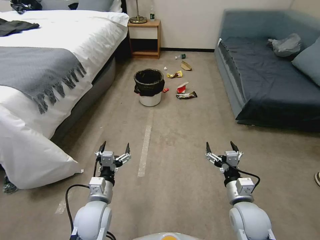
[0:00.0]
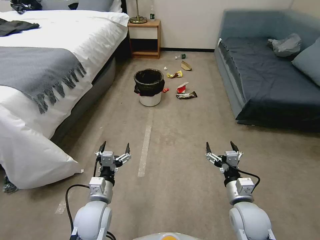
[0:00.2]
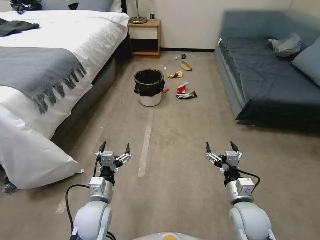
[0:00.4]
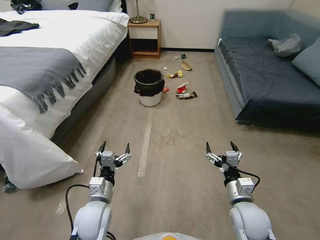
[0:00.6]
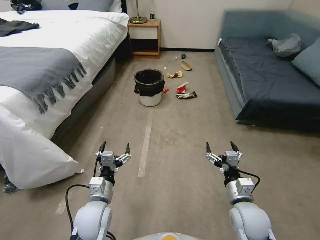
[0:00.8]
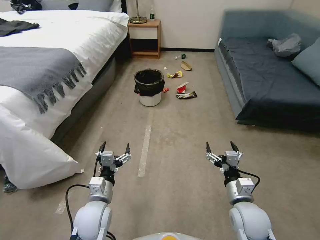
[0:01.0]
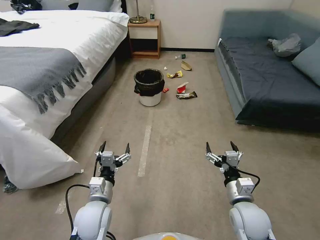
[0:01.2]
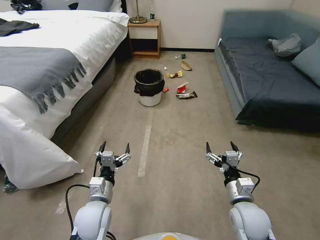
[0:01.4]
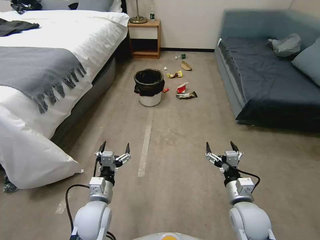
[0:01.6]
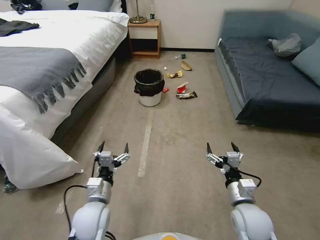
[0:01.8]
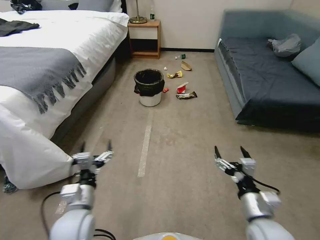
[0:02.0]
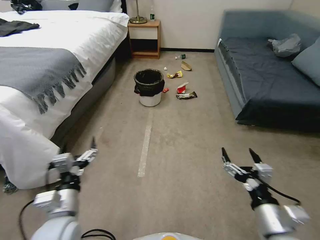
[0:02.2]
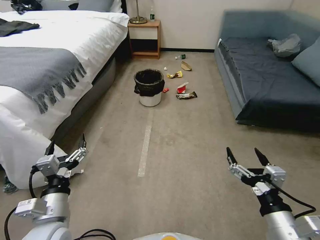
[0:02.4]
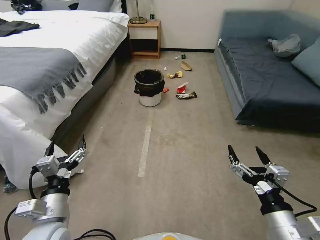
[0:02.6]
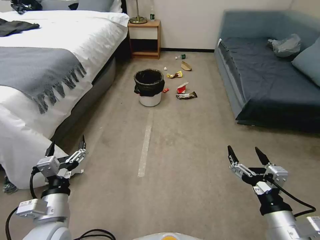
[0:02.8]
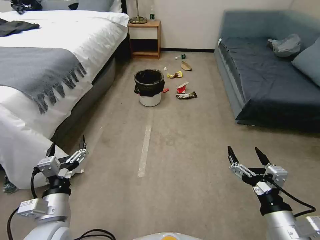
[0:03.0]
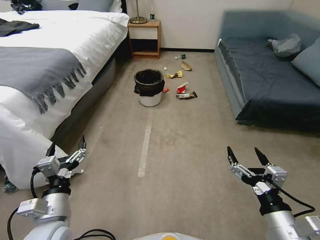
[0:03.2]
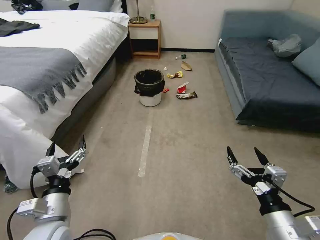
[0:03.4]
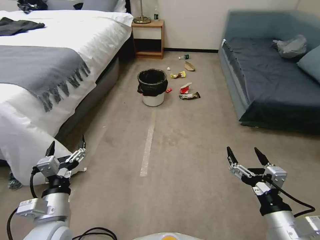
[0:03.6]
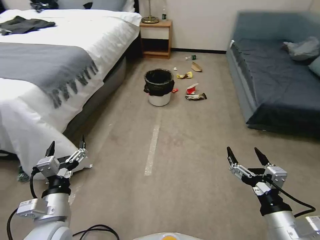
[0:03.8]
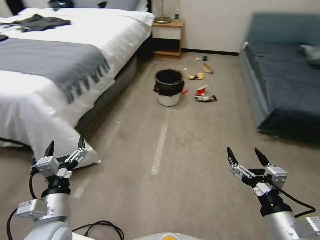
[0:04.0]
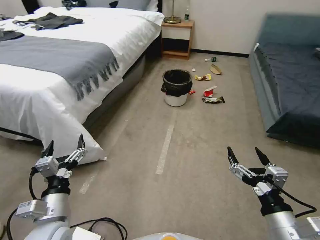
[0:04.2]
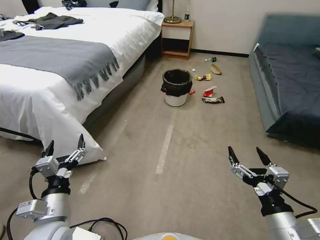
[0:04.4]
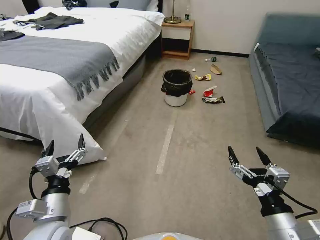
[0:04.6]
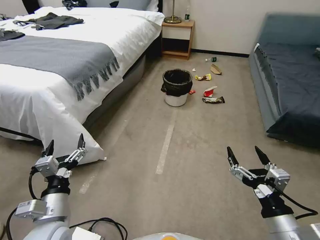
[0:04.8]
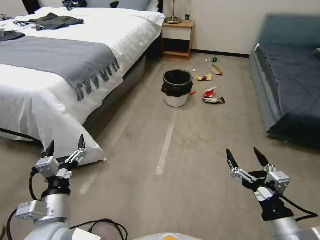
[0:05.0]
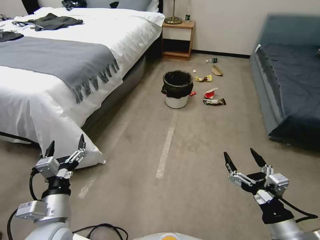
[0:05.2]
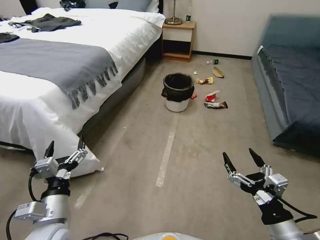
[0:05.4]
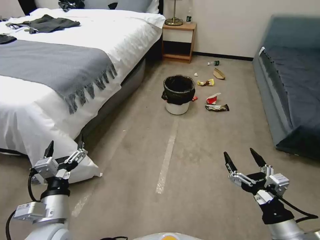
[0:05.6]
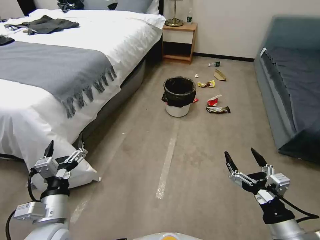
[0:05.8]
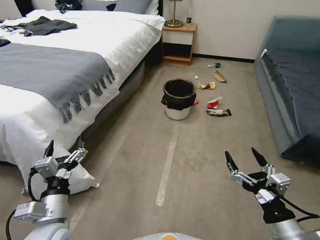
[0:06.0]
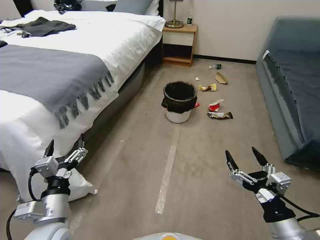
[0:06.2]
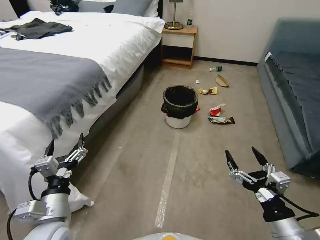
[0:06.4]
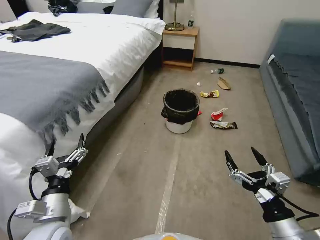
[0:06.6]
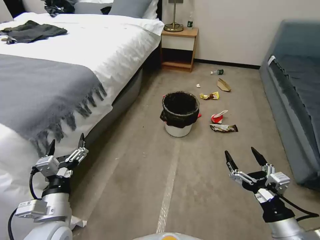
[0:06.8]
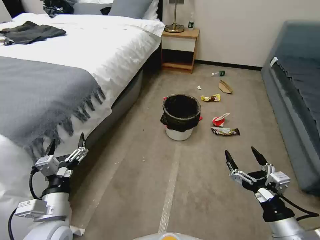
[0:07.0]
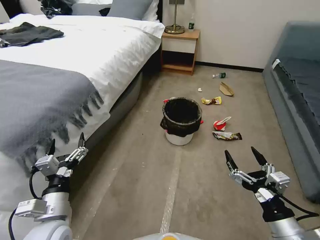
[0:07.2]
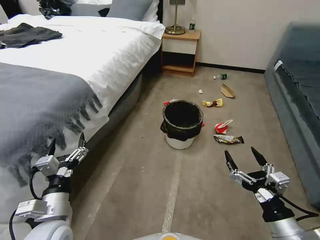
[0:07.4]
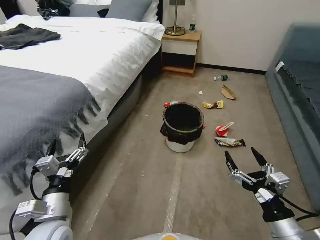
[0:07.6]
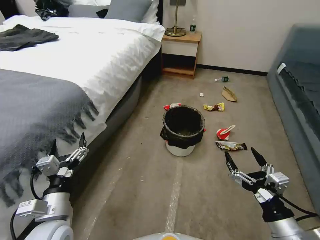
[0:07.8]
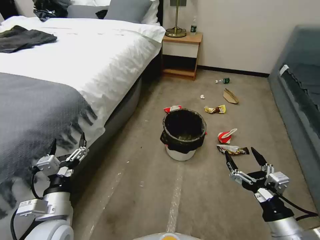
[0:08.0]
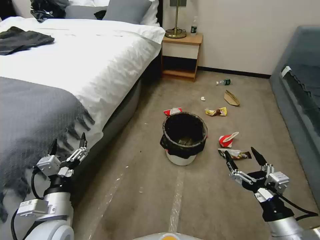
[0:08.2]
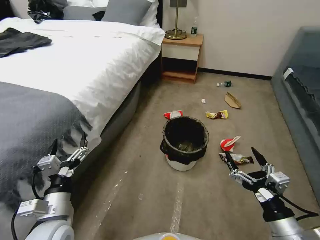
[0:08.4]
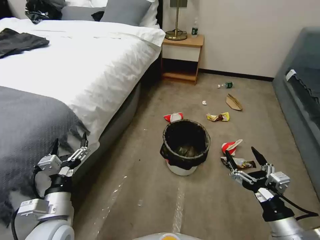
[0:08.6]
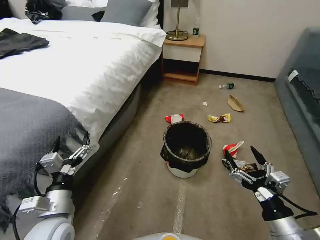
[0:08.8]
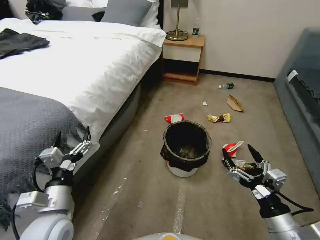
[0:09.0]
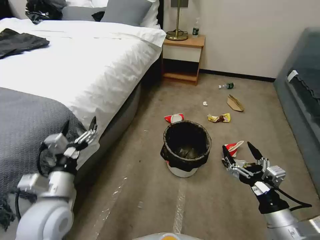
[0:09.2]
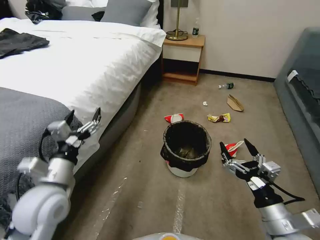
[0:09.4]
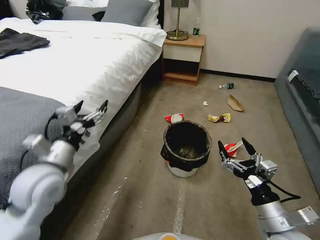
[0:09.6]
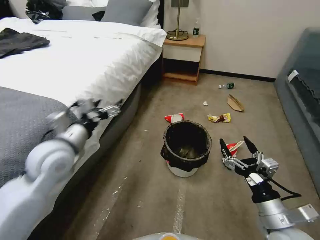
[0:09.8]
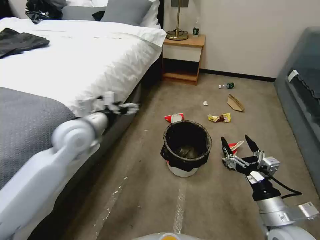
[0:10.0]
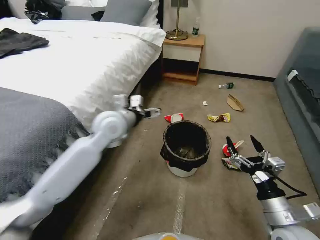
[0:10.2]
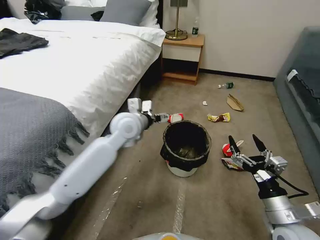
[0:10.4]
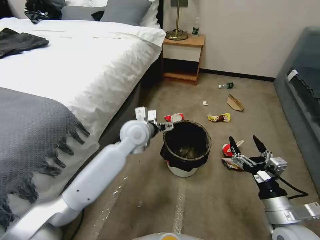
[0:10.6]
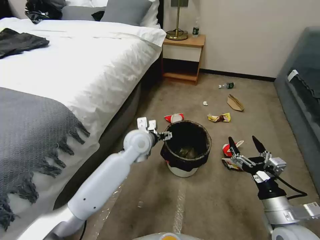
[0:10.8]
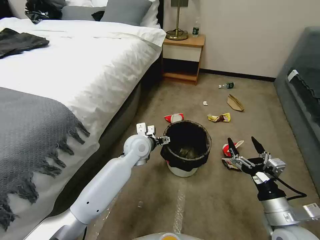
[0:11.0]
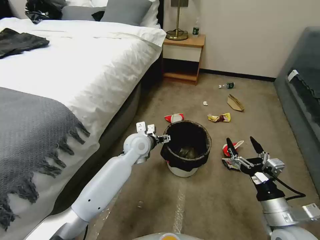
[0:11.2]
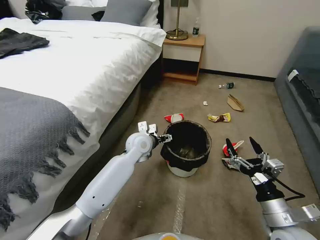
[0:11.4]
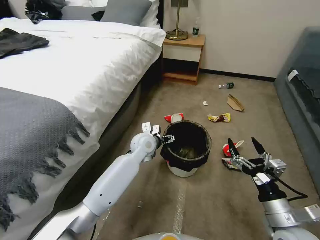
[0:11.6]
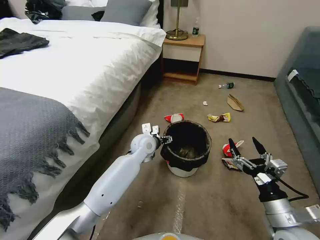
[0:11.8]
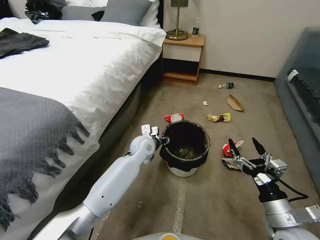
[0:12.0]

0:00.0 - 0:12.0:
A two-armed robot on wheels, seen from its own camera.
Task of the whole recording: Pick up the trash can from the floor.
0:01.6 - 0:03.0: The left gripper shifts about 10 cm to the left, upward and backward, while the right gripper shifts roughly 15 cm backward and upward.
0:09.0 - 0:10.4: The left gripper moves forward and to the right, about 30 cm.
0:10.4 - 0:12.0: The left gripper heads downward, covering approximately 15 cm, and closes its fingers.

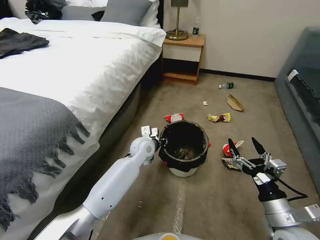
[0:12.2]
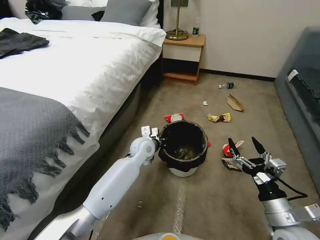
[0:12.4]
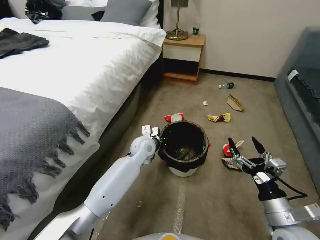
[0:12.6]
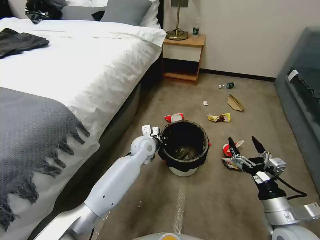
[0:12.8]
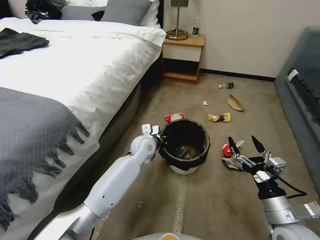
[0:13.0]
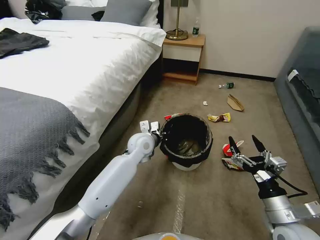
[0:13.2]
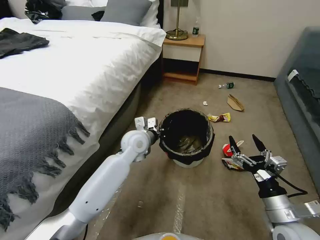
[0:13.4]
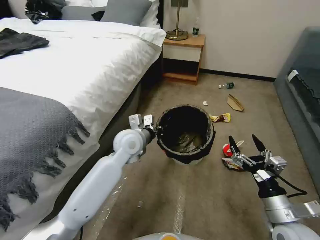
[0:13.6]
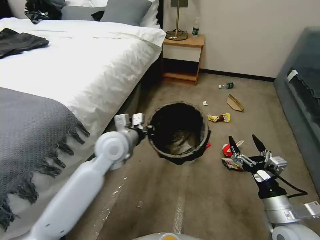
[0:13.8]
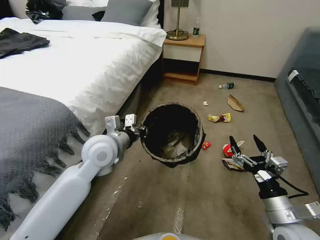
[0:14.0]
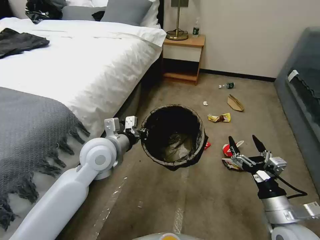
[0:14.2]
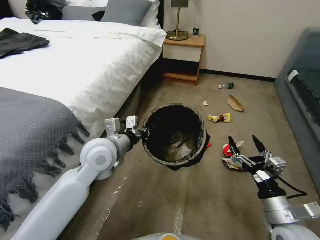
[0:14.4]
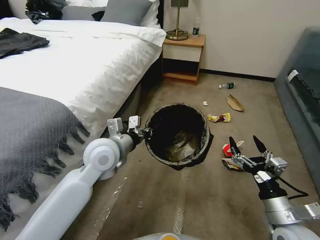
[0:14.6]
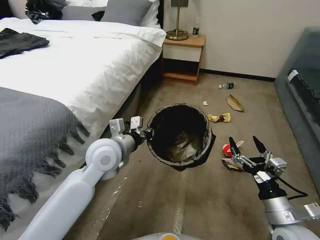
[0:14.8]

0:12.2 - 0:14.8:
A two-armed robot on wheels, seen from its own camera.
Task of the whole recording: Pick up the trash can from the floor.
0:12.2 - 0:13.4: The left gripper goes about 5 cm upward.
0:13.4 - 0:14.8: The left gripper heads backward, upward and to the left, covering roughly 15 cm.
